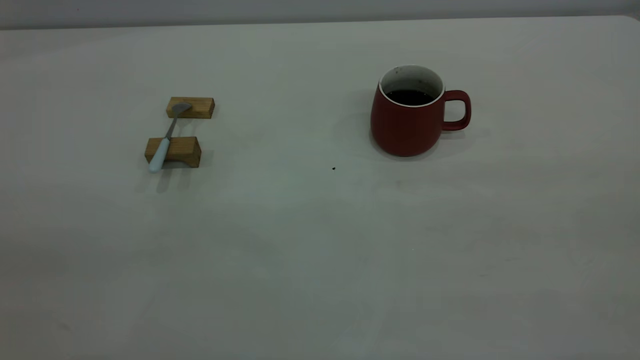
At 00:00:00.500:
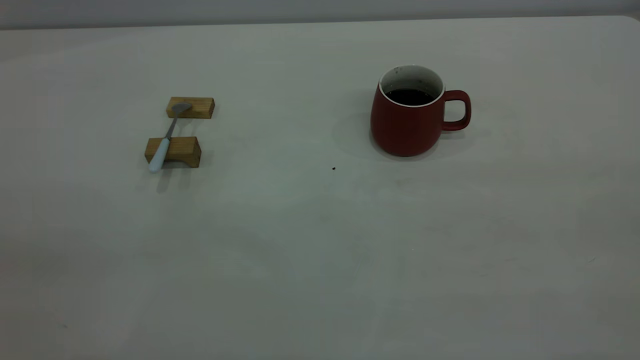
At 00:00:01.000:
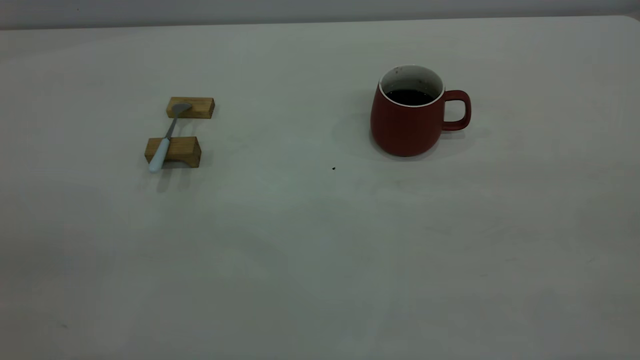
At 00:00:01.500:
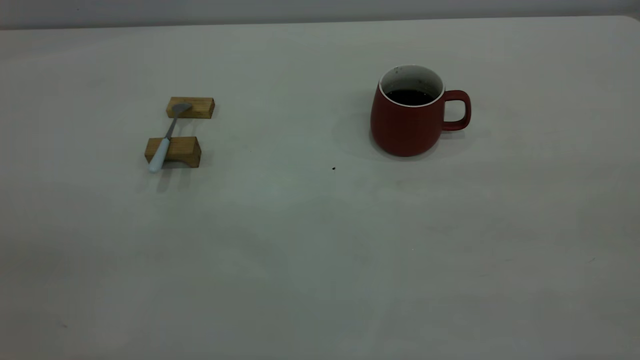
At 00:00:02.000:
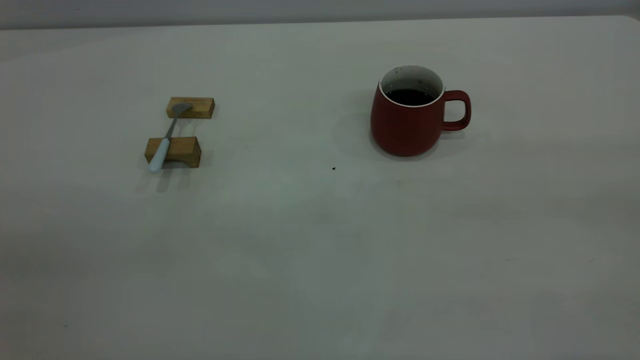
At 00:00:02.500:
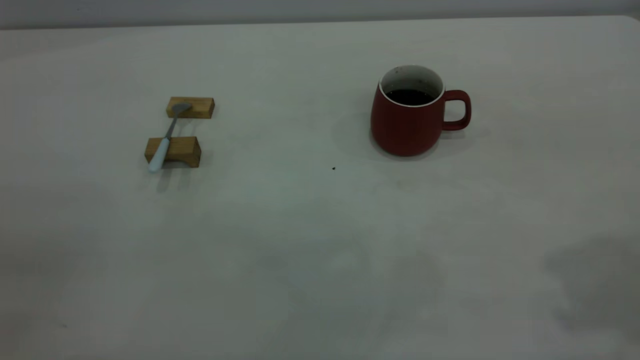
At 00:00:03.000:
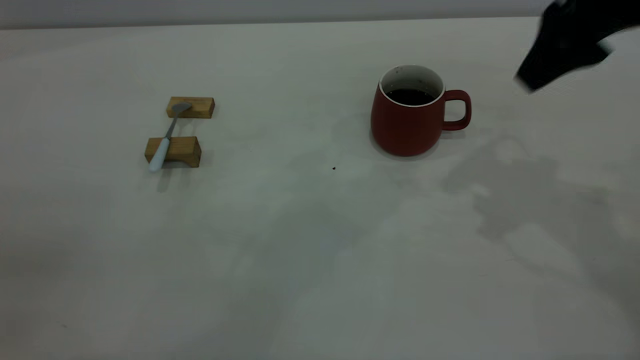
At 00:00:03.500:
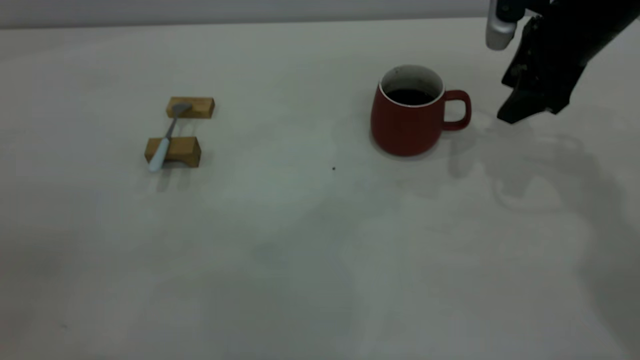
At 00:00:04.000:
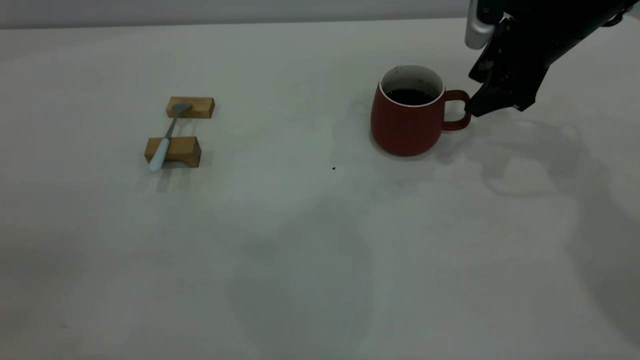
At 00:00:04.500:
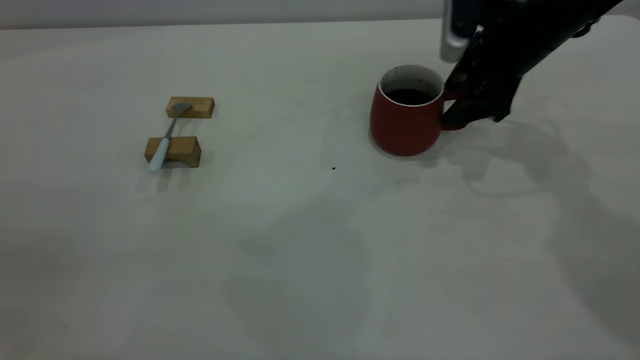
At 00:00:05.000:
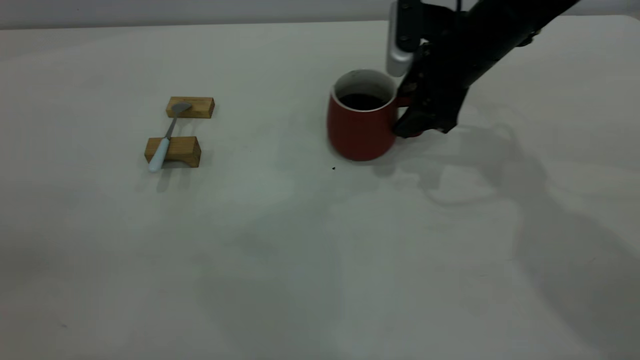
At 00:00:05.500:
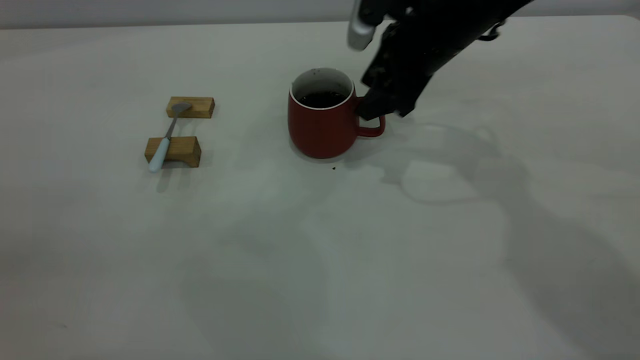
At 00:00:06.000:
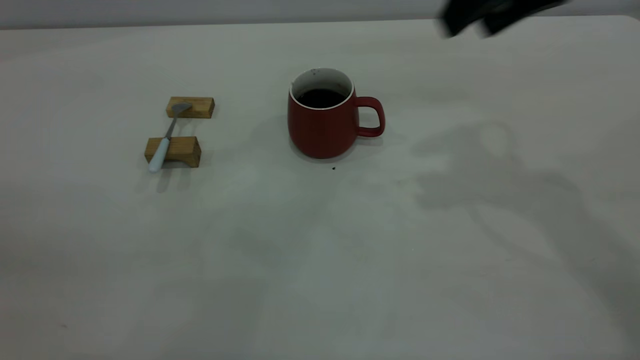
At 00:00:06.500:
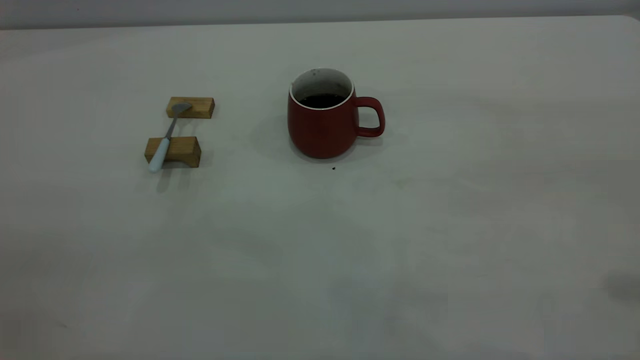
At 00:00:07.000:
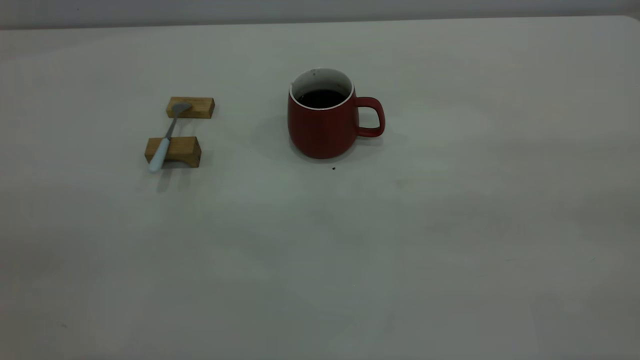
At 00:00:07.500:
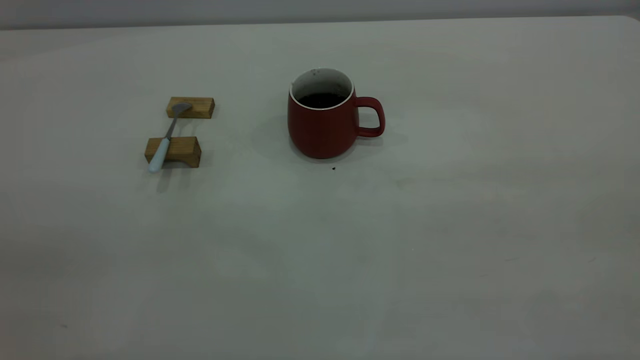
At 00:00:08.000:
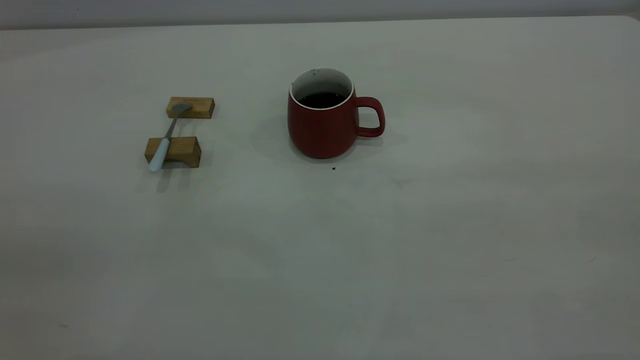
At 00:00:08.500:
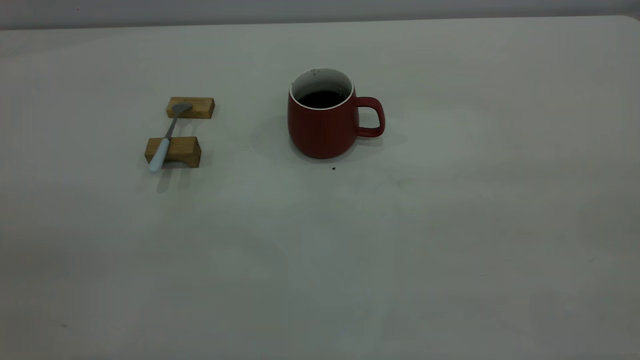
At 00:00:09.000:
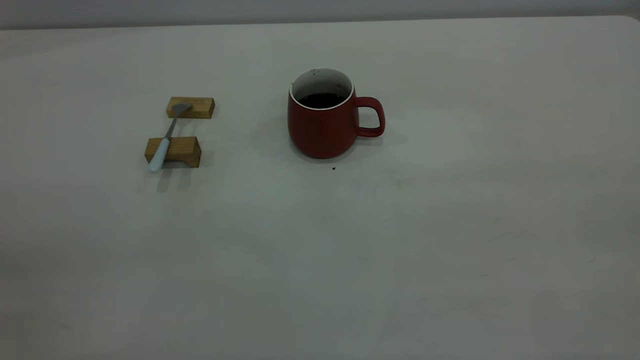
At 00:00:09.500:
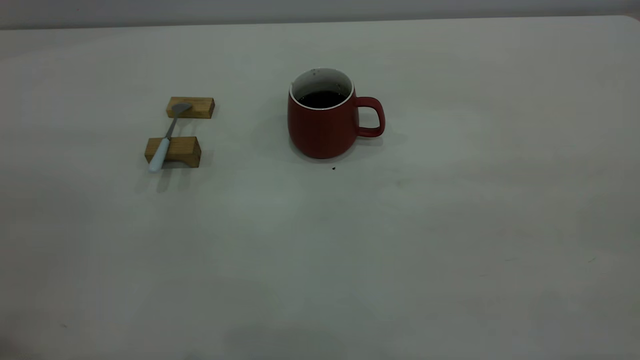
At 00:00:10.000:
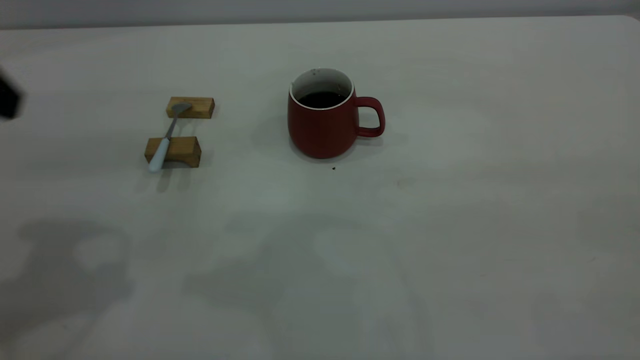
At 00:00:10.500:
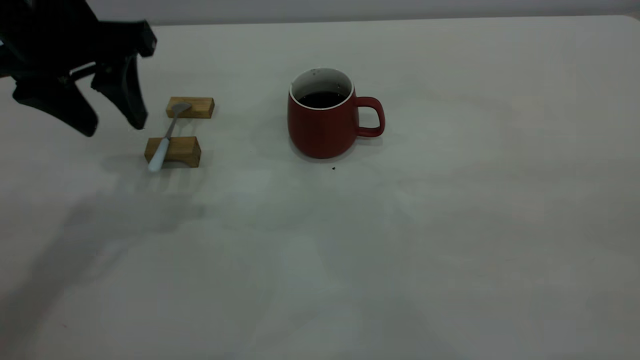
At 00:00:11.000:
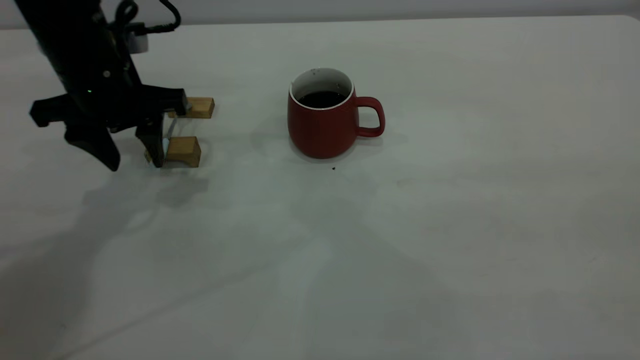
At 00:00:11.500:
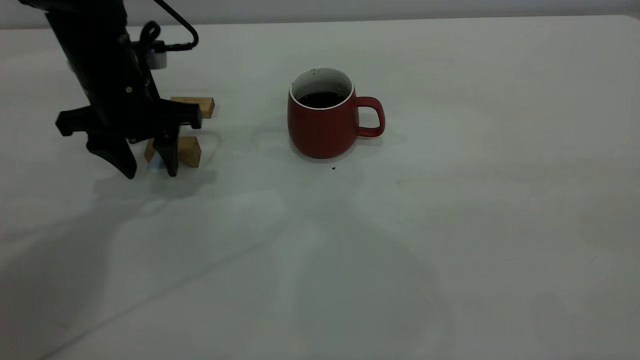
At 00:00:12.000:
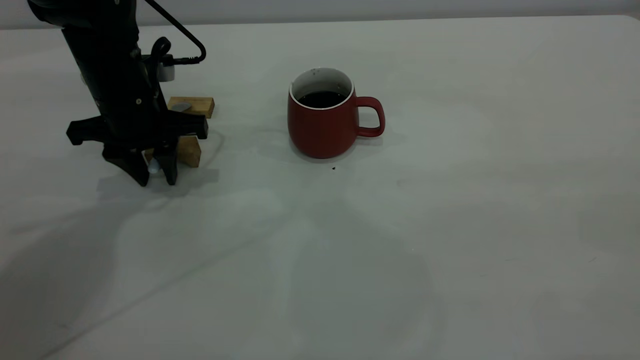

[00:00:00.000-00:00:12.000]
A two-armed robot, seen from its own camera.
Step, 00:00:00.000 to 00:00:05.500: Move the cup with coffee to the center of view.
00:00:02.000 to 00:00:04.000: The right gripper heads forward and downward, covering some 50 cm.
00:00:04.000 to 00:00:06.000: The right gripper is displaced upward and backward by roughly 20 cm.
00:00:06.000 to 00:00:08.000: The right gripper goes some 35 cm backward.
00:00:10.000 to 00:00:12.000: The left gripper moves downward and forward, roughly 25 cm, and closes its fingers.

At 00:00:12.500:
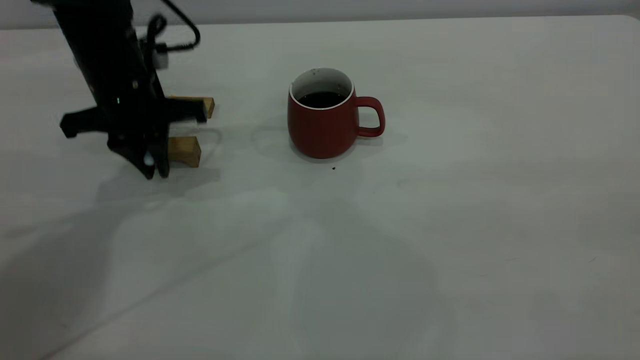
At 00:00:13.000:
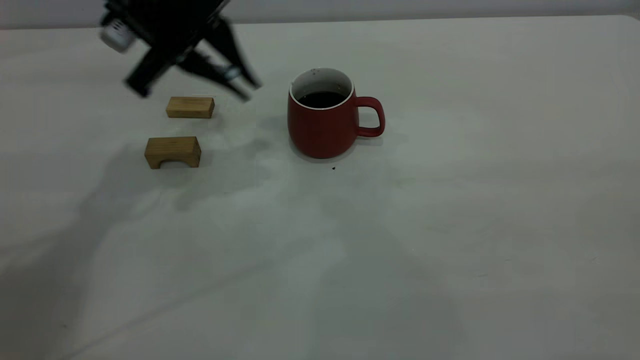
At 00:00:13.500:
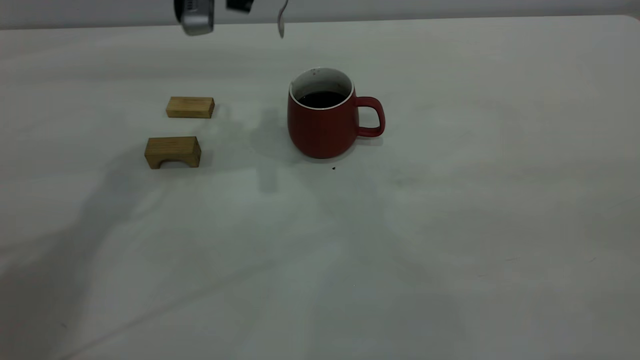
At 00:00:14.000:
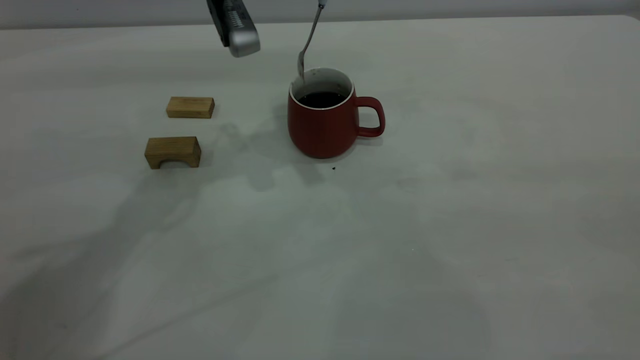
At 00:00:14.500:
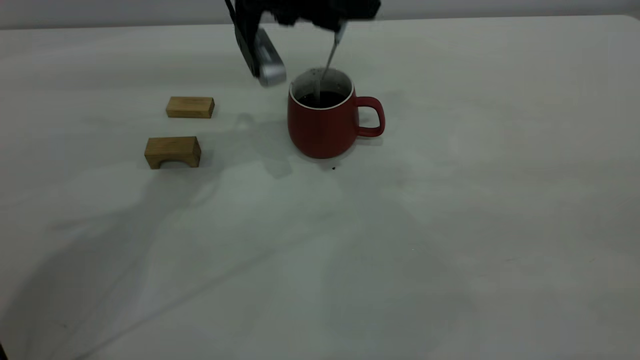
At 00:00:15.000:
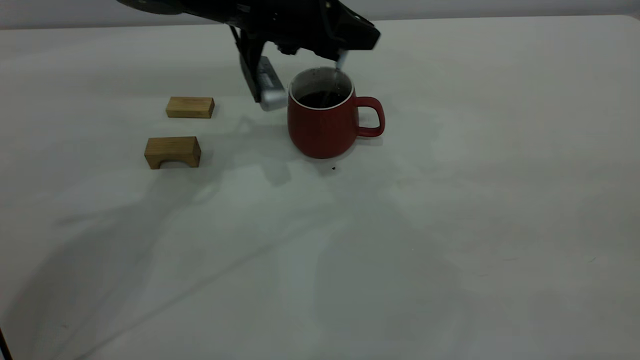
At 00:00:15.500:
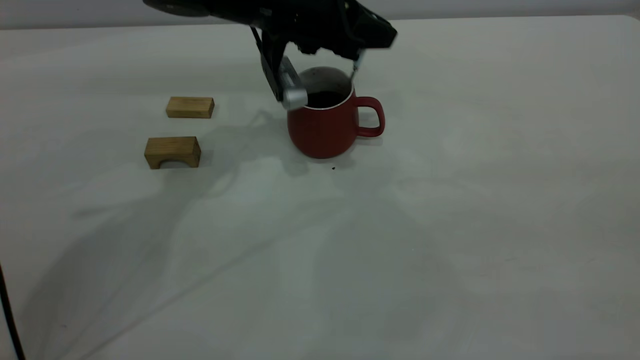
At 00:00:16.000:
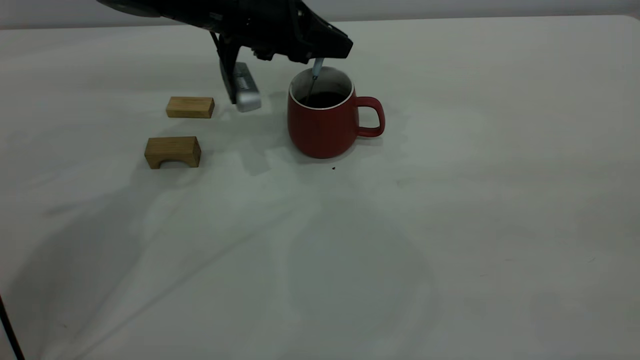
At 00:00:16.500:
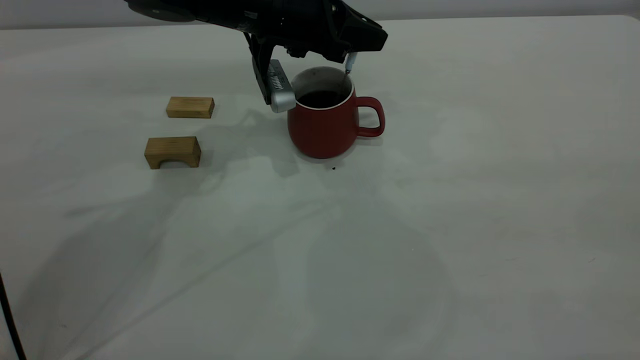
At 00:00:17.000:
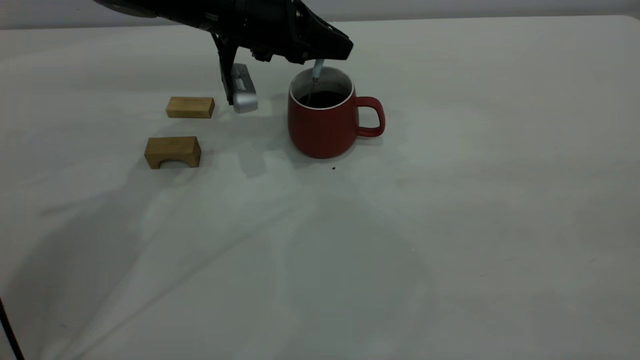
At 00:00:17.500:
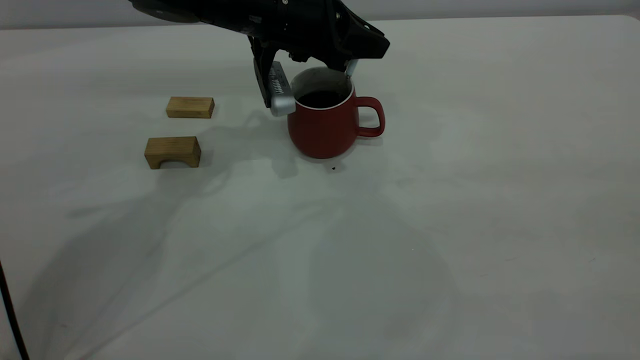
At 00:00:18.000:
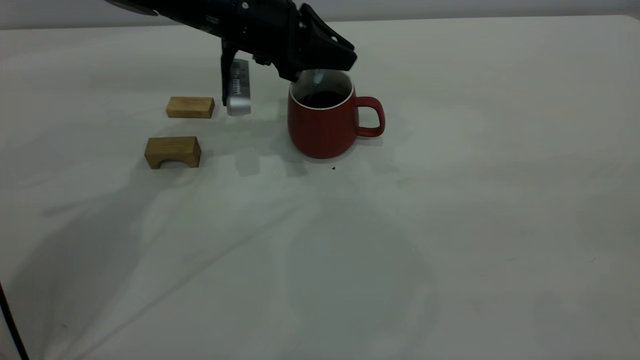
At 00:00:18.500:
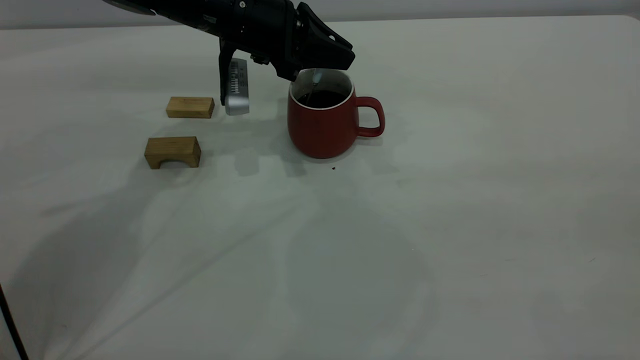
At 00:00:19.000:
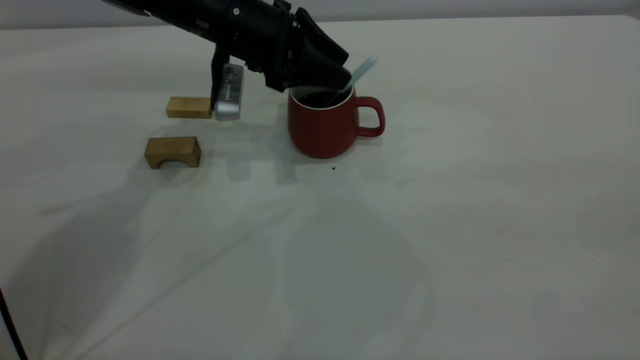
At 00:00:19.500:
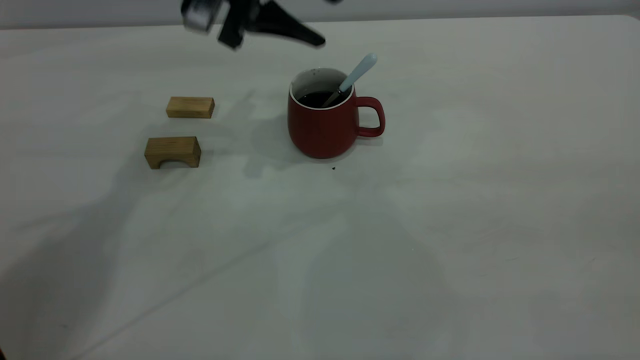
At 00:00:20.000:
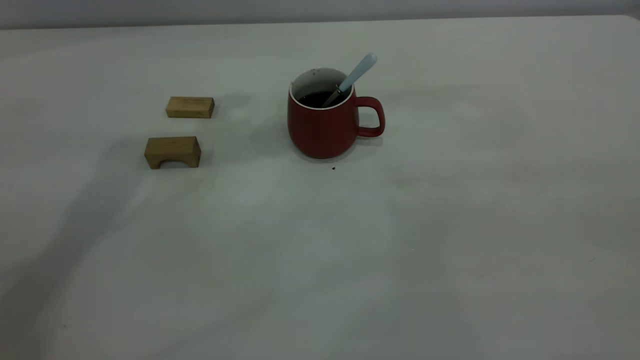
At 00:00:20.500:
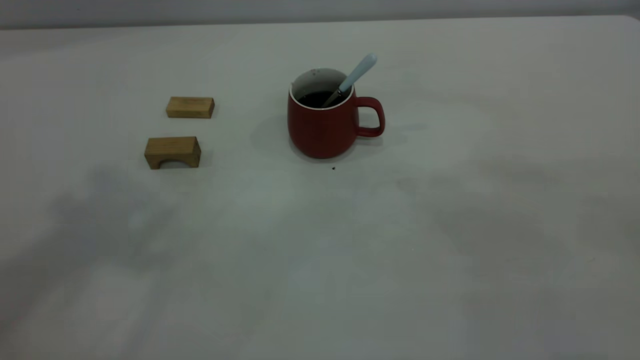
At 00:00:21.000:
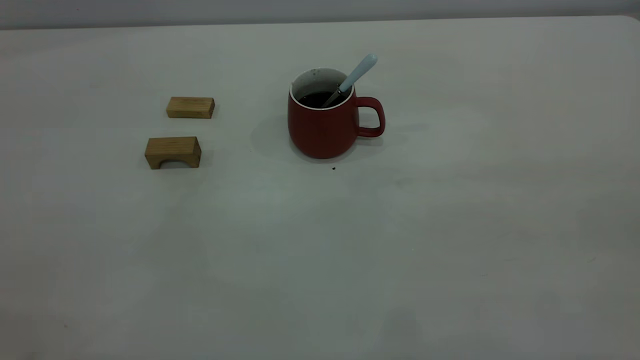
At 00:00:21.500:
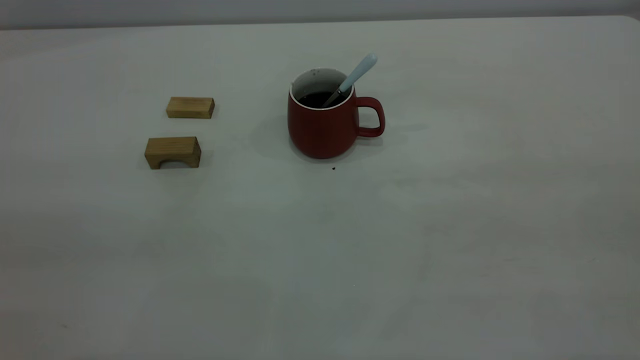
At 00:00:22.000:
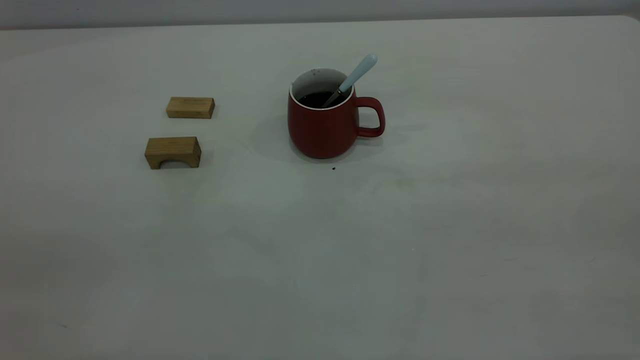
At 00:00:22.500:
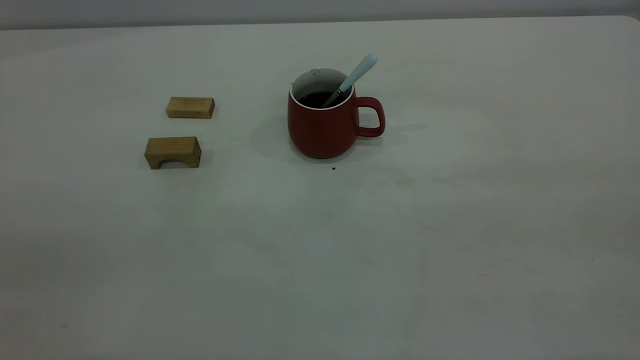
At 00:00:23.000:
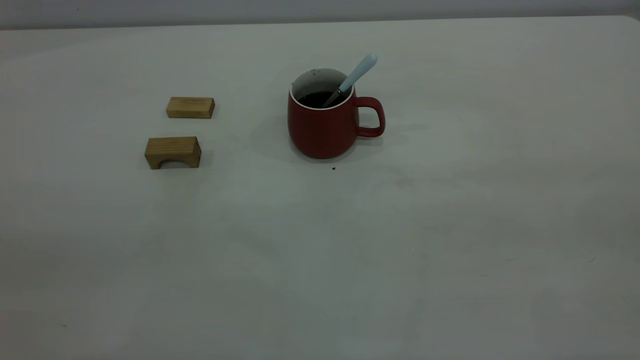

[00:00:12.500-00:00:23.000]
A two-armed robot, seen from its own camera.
Step, 00:00:13.000 to 00:00:19.000: Stir the coffee in the cup.
00:00:12.500 to 00:00:14.500: The left gripper travels to the right by roughly 15 cm.
00:00:14.500 to 00:00:16.500: The grippers move only a little.
00:00:16.500 to 00:00:19.000: The left gripper opens up.
00:00:19.000 to 00:00:21.000: The left gripper travels upward and backward by about 60 cm.
